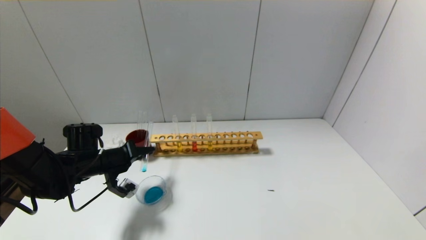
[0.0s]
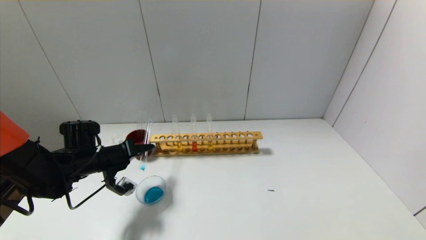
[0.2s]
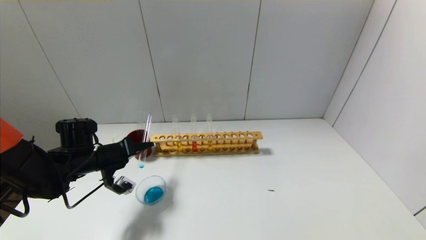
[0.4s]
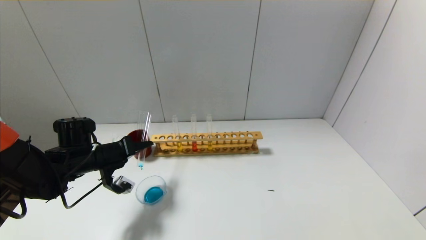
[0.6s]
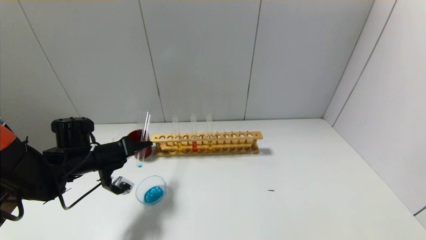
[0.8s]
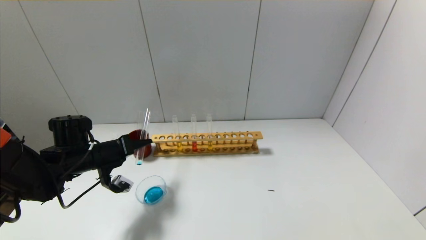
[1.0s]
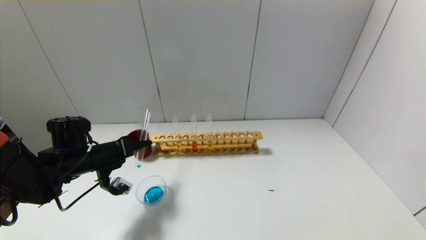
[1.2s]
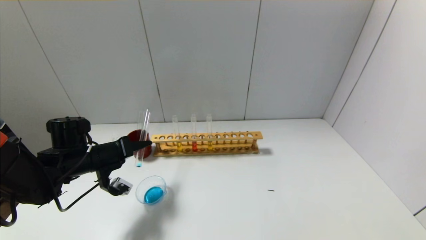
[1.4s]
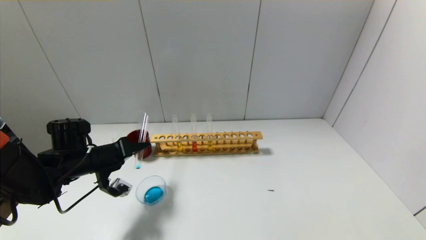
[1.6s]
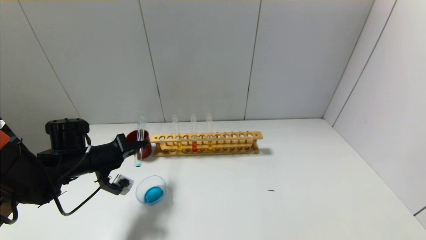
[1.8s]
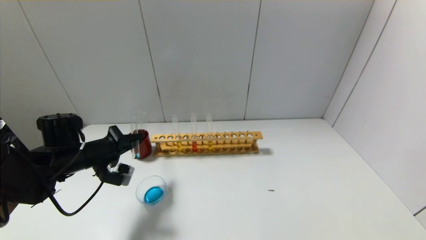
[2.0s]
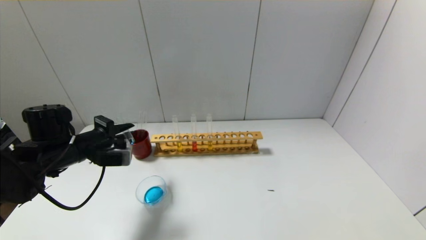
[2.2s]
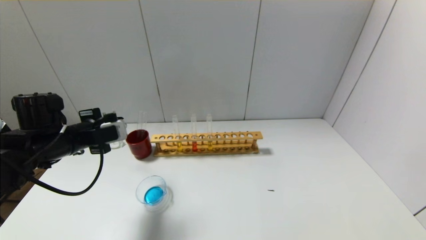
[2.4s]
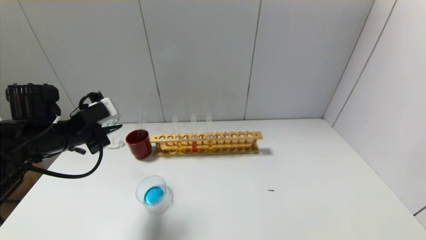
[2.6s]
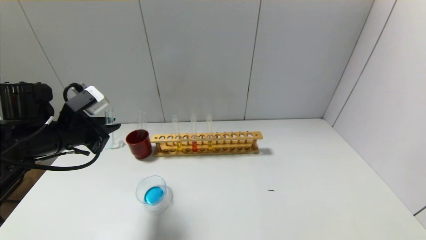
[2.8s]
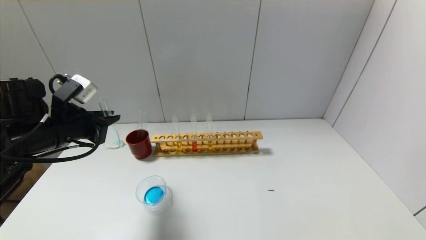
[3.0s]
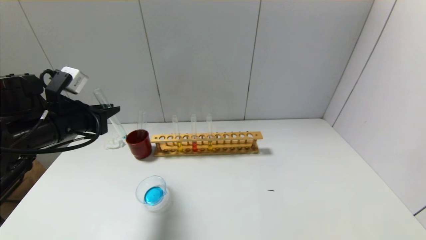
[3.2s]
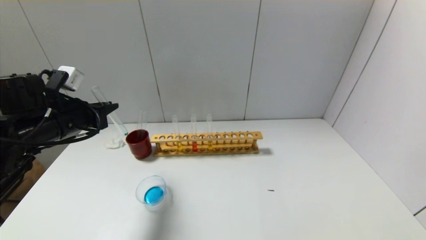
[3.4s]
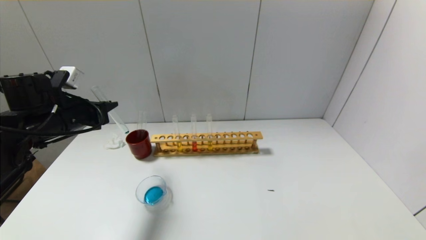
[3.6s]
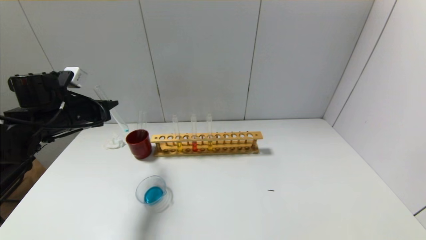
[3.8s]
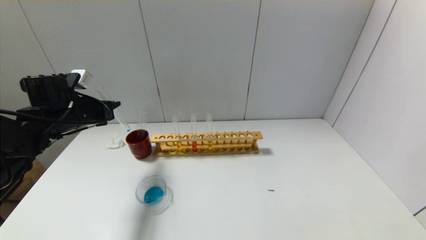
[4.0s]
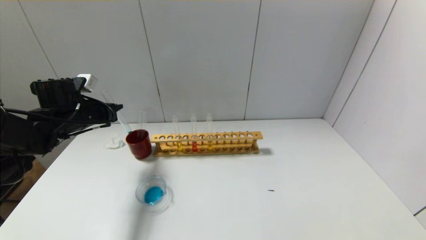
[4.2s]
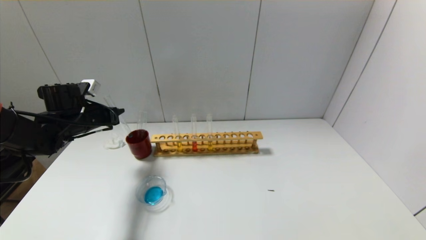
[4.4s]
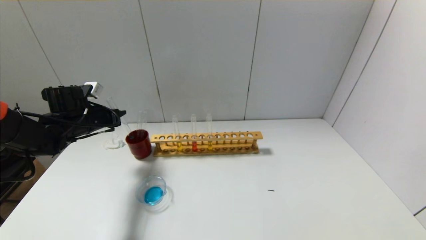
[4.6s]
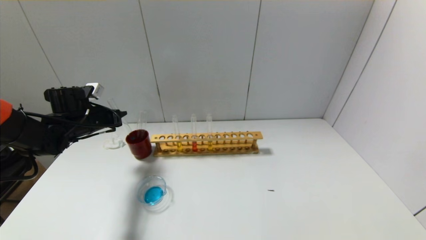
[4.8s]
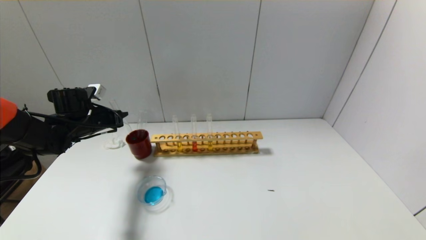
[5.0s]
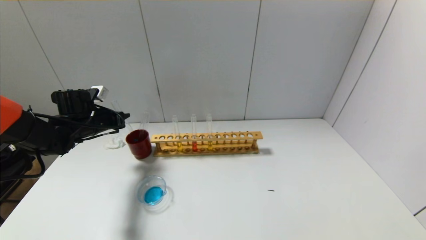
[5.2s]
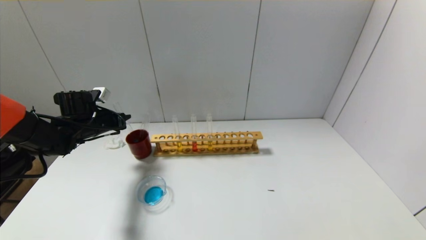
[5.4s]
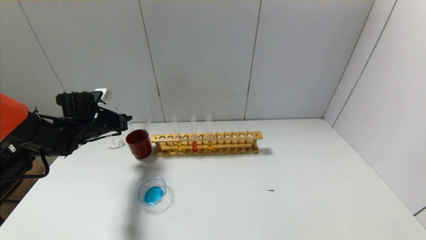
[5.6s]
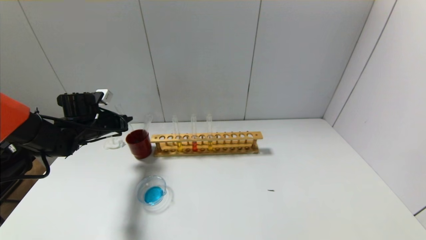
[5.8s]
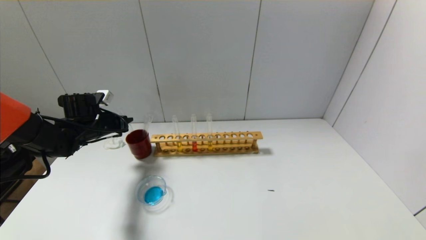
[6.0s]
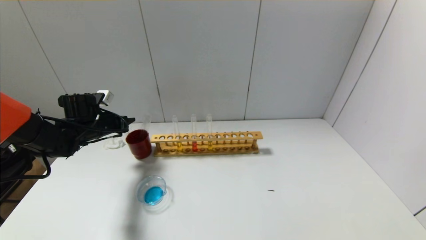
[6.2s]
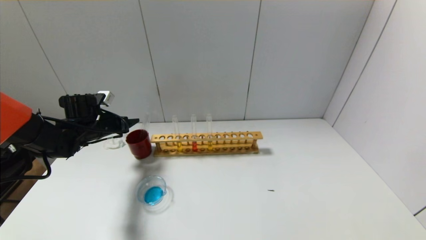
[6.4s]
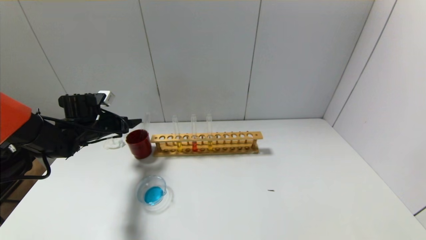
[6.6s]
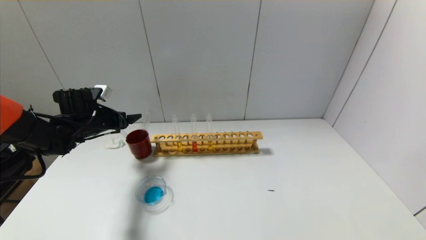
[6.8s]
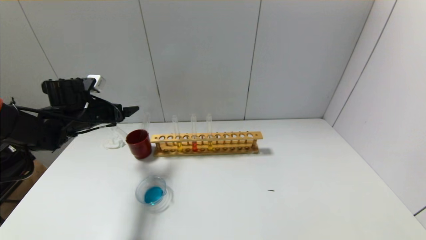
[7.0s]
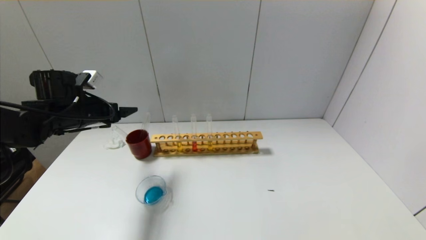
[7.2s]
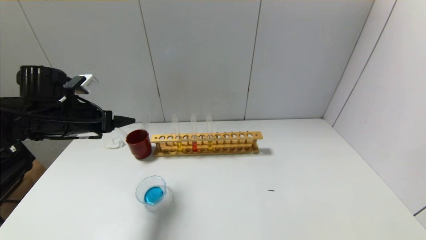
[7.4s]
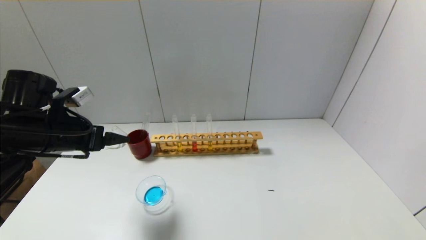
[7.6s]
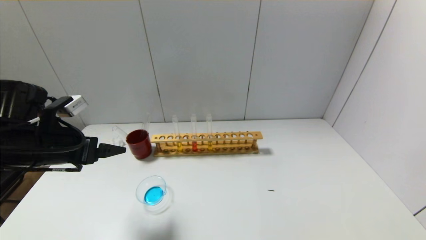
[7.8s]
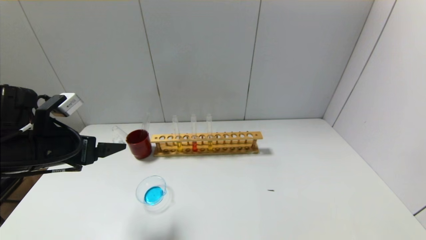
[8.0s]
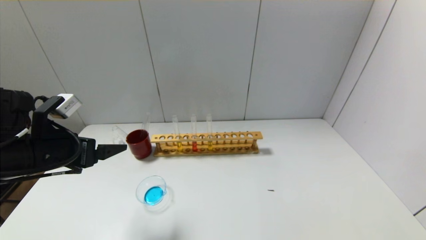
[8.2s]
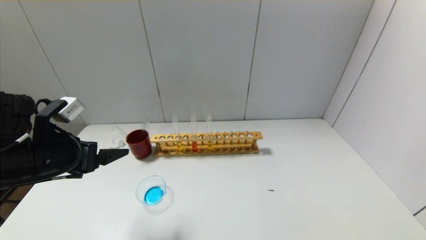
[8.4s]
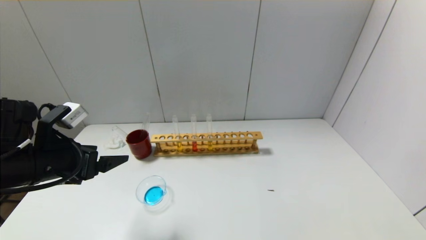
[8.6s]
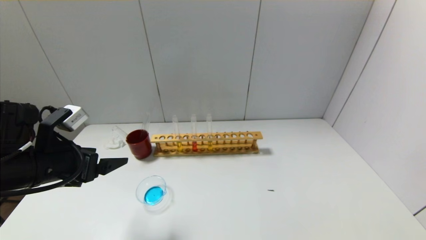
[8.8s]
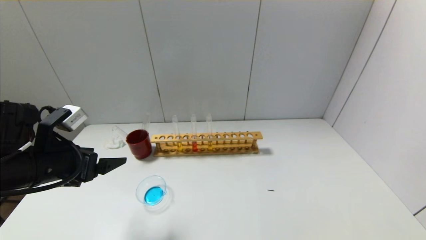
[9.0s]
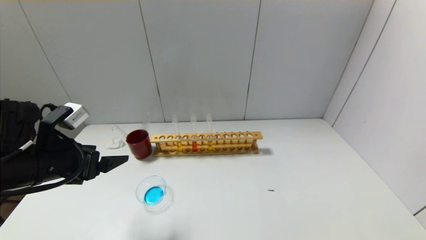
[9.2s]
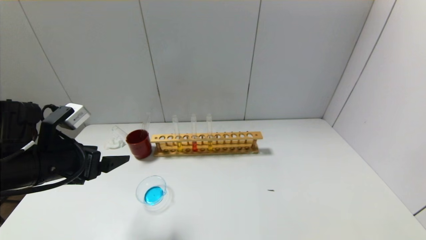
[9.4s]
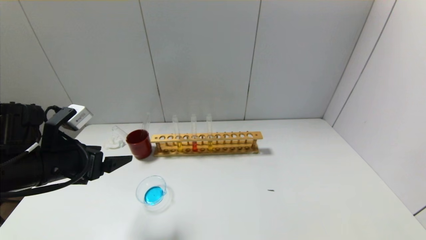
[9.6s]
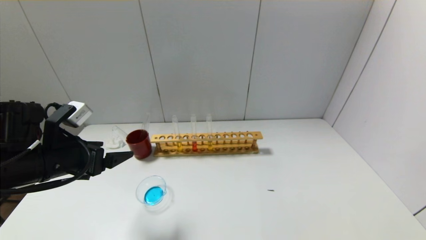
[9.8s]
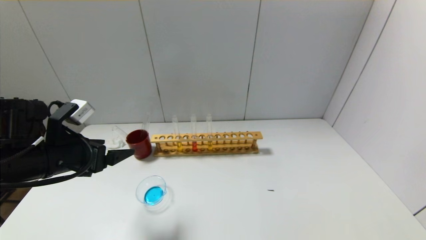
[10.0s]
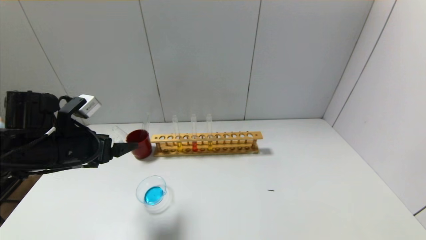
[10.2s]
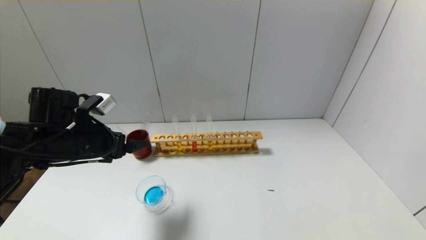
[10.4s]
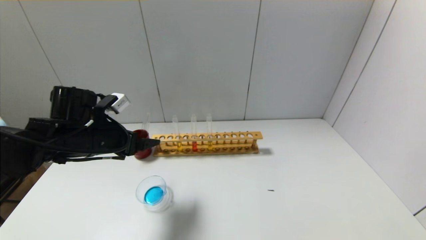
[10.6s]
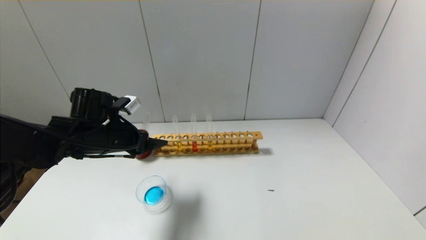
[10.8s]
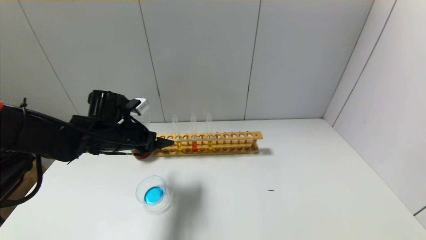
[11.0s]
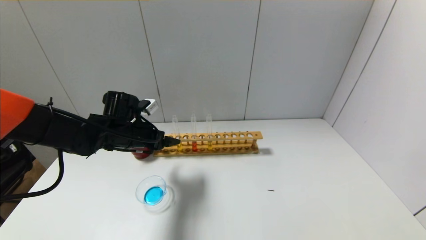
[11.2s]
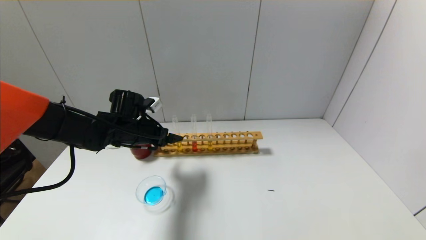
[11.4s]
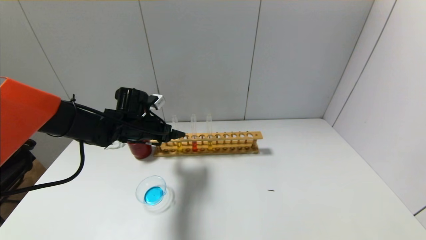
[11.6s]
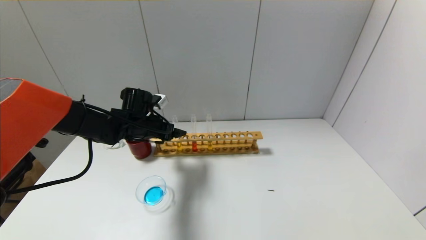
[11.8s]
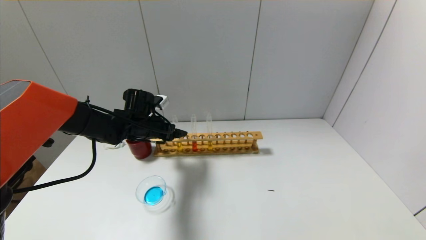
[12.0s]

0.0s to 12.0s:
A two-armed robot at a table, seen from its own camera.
Step, 0.0s to 2.0s: Pour the blue reagent into the graduated cylinder with the left gripper.
Step, 2.2s to 6.2s: Place the test tube into the brown cup with the left gripper.
0.0s to 1.6s: The grippers make only small movements.
1.6s to 3.0s: The left gripper travels upward by roughly 10 cm.
3.0s to 4.4s: The left gripper shifts about 10 cm forward and downward.
4.4s to 6.0s: The grippers make only small movements.
6.0s to 7.6s: The left gripper travels backward and upward by about 15 cm, and opens its fingers.
7.6s to 9.0s: The grippers move only a little.
9.0s to 10.4s: The left gripper heads forward, covering approximately 5 cm.
10.4s to 12.0s: The left gripper heads forward, to the right and downward, covering roughly 15 cm.

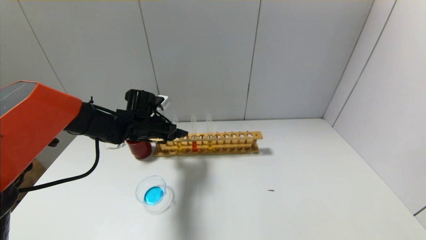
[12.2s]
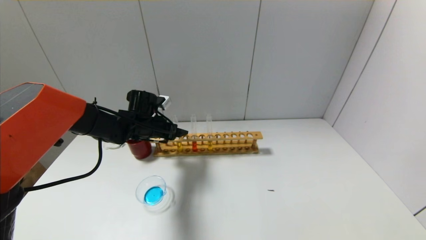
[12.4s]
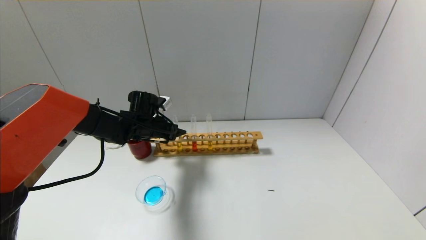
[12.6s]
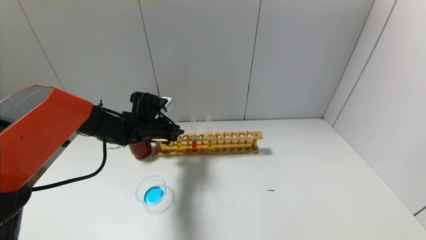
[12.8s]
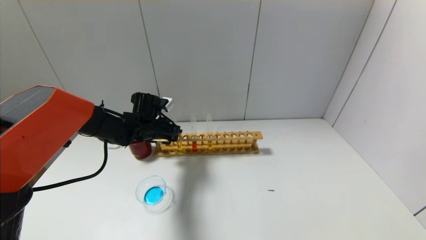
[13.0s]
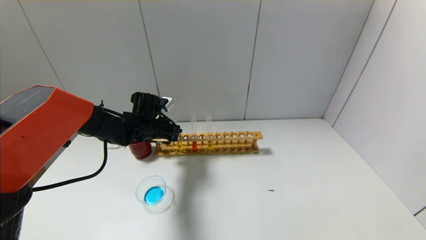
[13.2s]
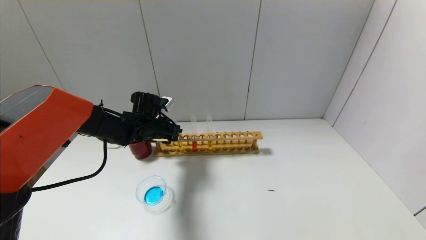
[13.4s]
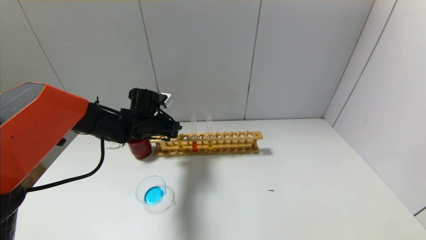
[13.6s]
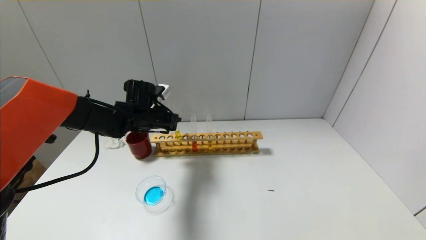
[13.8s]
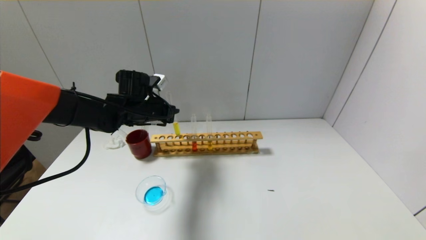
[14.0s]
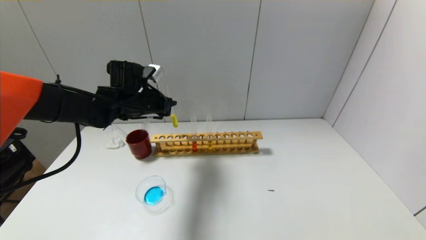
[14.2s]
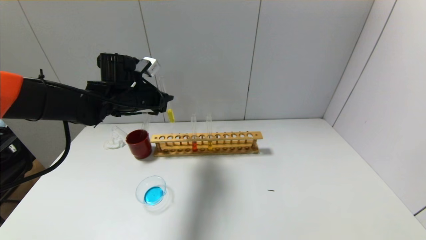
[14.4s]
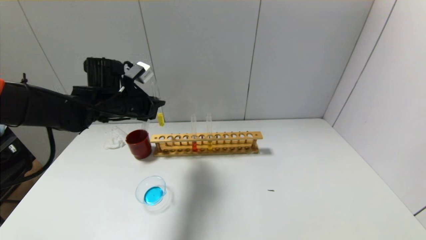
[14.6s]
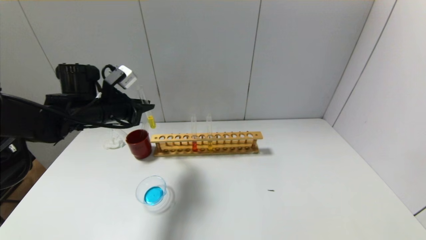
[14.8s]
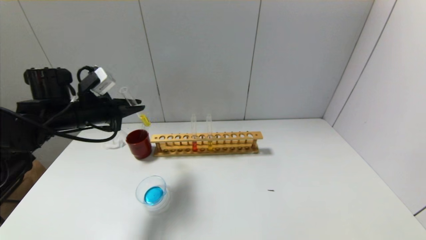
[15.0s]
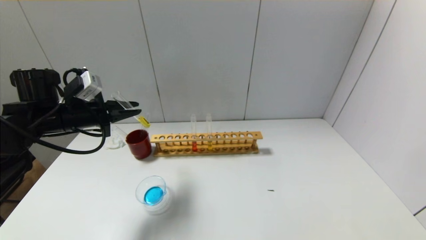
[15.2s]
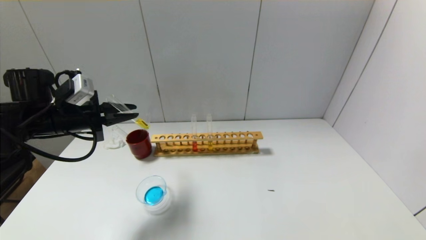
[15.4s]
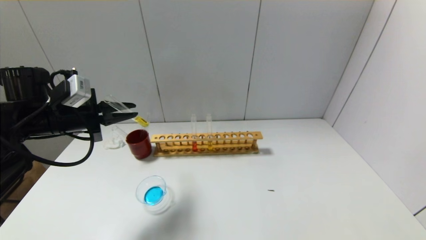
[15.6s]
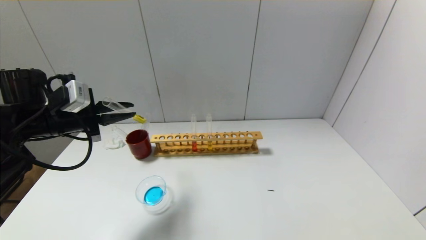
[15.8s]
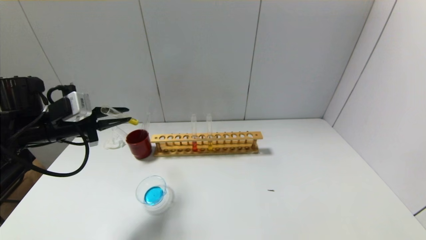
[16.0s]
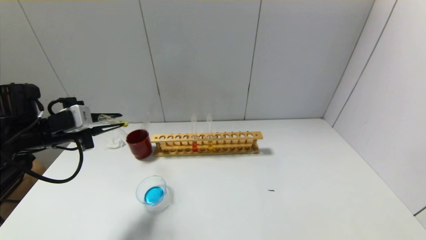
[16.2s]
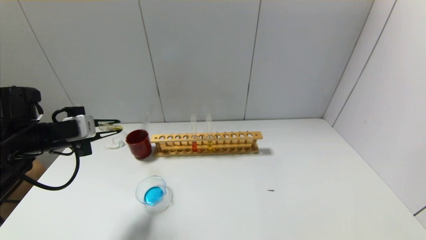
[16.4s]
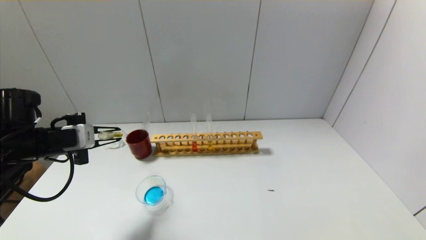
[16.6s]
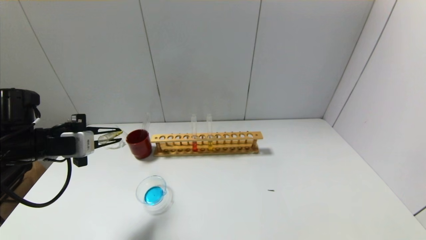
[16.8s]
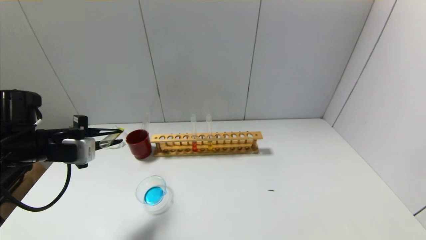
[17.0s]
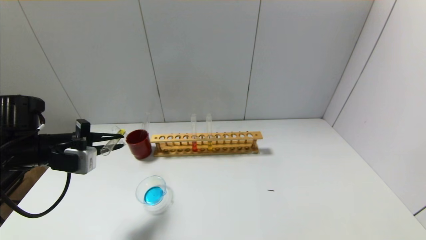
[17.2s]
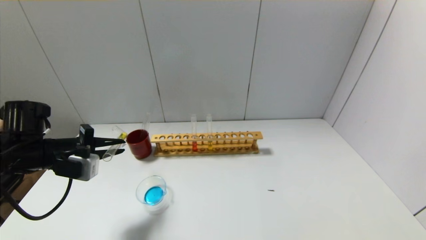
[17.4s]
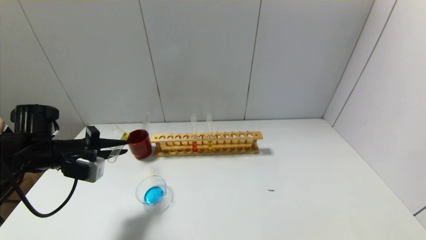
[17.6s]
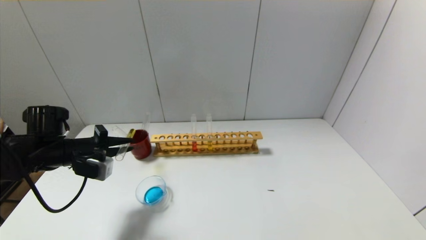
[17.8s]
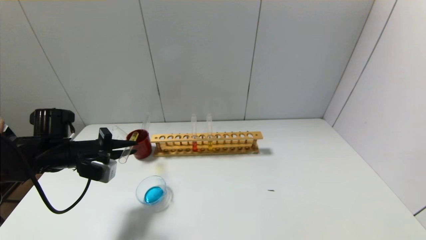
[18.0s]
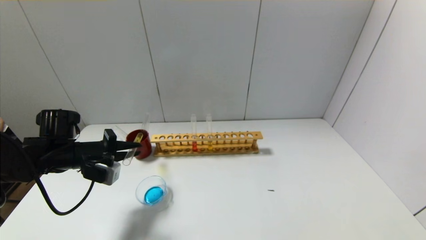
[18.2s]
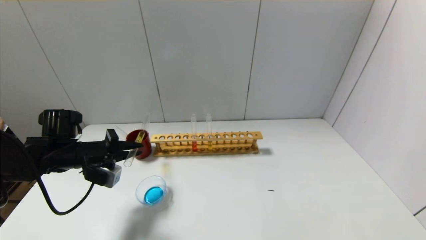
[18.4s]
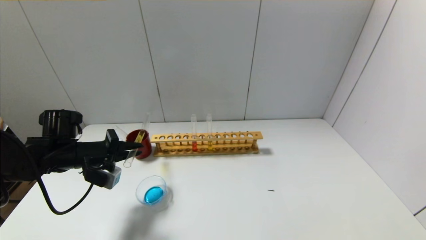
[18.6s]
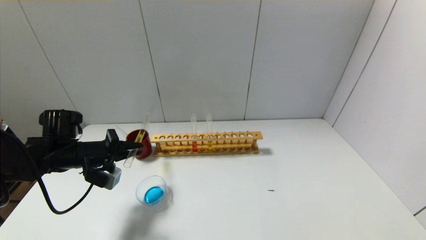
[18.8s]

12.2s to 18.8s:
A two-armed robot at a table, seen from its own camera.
12.2s to 13.8s: The left gripper closes up.
13.8s to 15.4s: The left gripper shifts some 15 cm to the left, backward and upward.
15.4s to 17.2s: The left gripper shifts by some 5 cm.
17.2s to 18.8s: The left gripper is displaced downward by approximately 5 cm.
